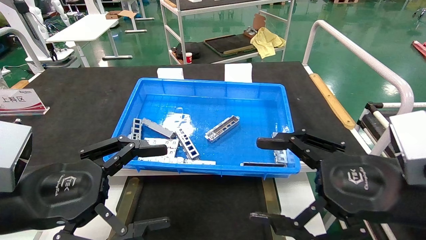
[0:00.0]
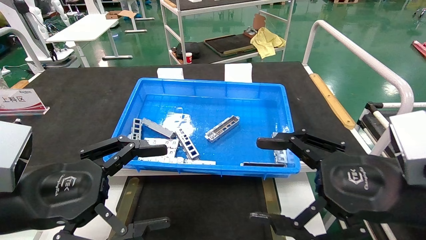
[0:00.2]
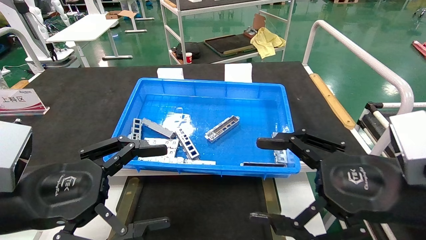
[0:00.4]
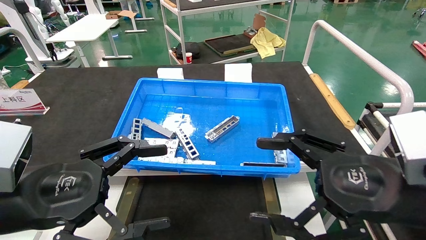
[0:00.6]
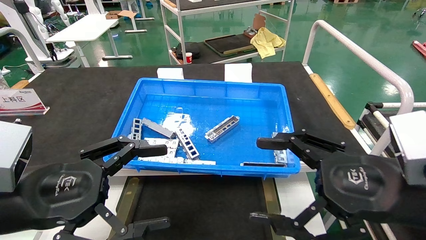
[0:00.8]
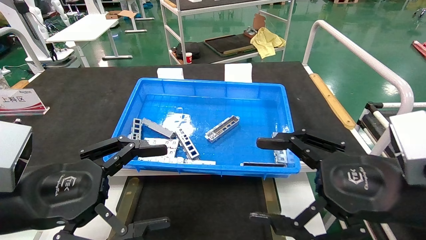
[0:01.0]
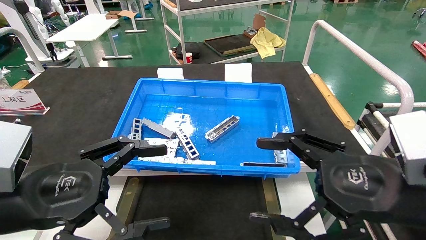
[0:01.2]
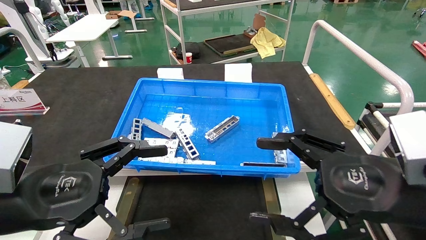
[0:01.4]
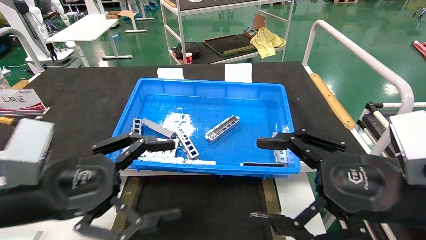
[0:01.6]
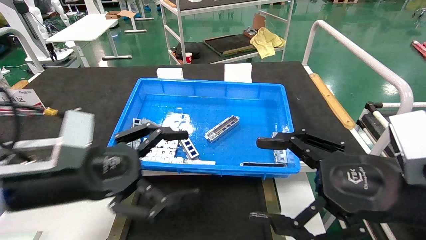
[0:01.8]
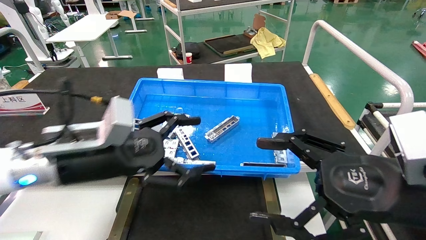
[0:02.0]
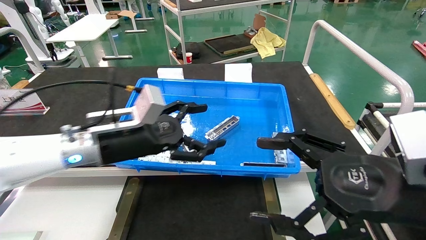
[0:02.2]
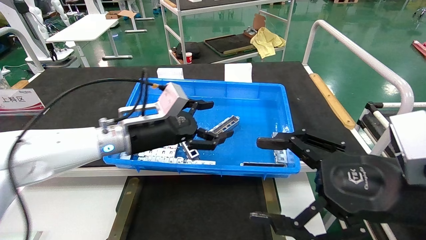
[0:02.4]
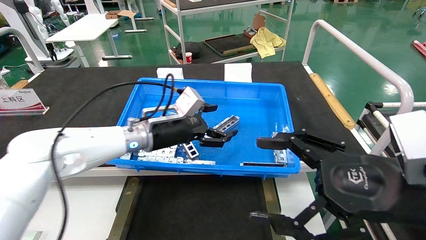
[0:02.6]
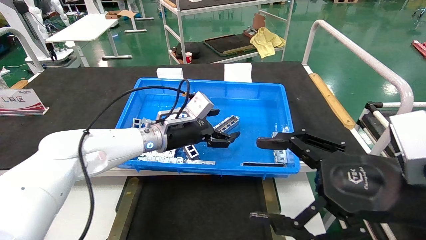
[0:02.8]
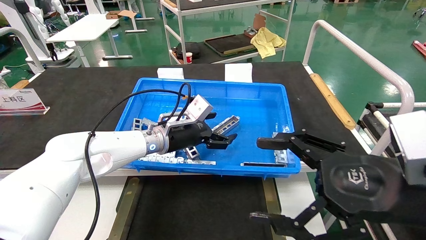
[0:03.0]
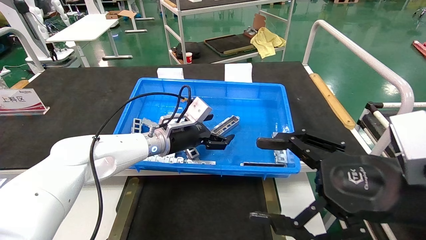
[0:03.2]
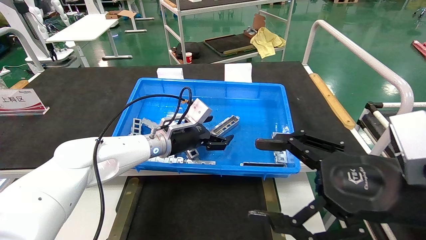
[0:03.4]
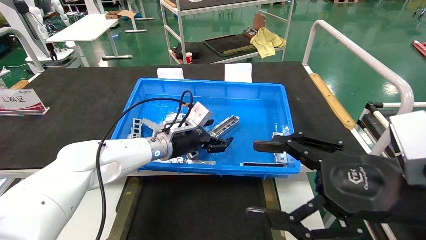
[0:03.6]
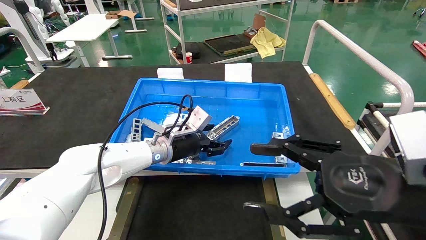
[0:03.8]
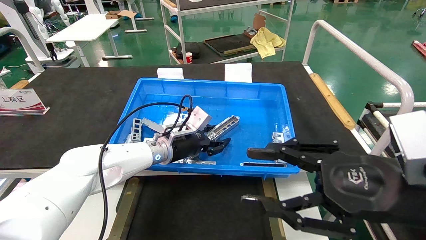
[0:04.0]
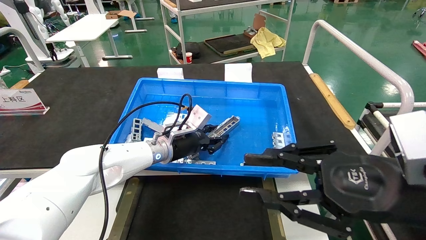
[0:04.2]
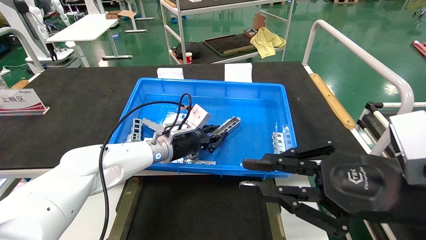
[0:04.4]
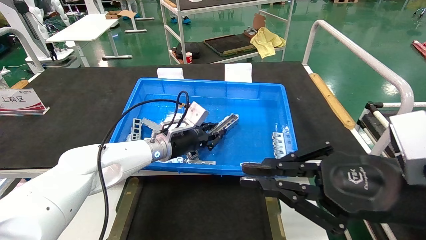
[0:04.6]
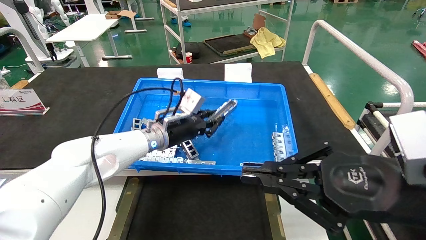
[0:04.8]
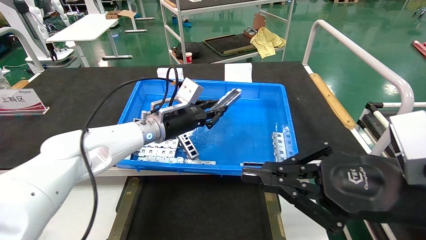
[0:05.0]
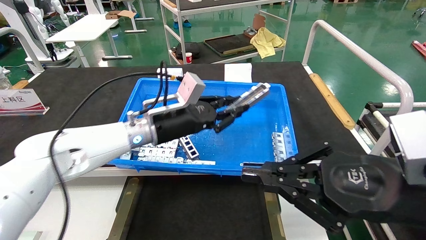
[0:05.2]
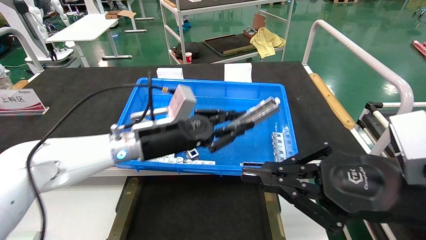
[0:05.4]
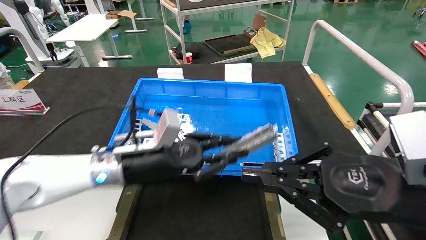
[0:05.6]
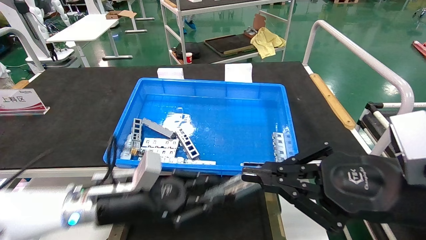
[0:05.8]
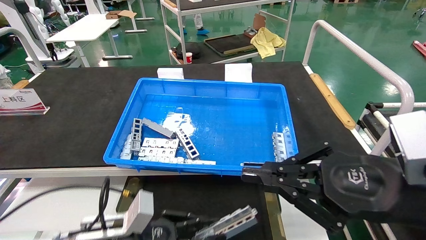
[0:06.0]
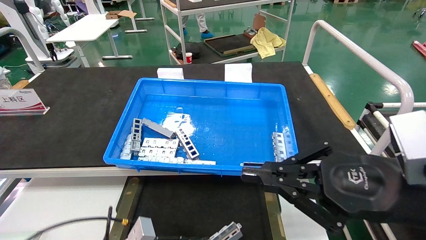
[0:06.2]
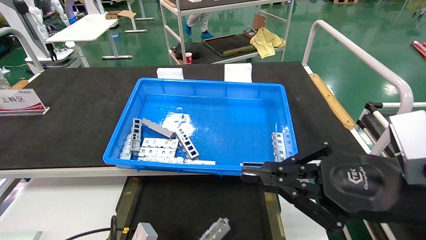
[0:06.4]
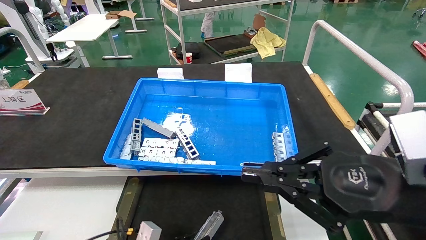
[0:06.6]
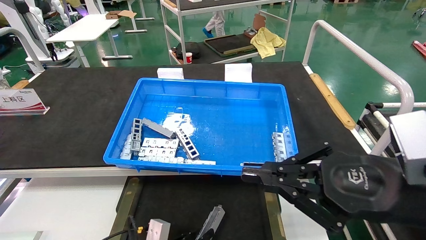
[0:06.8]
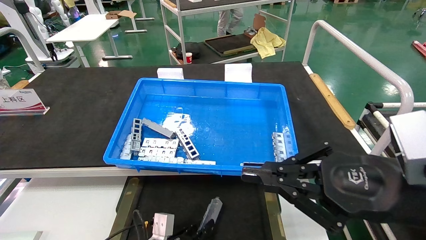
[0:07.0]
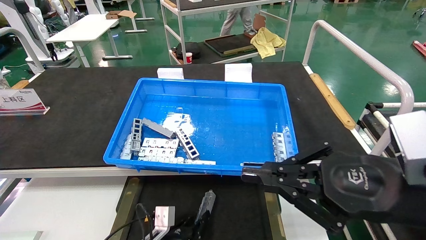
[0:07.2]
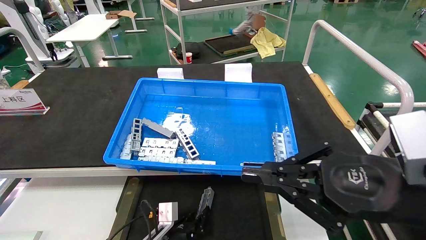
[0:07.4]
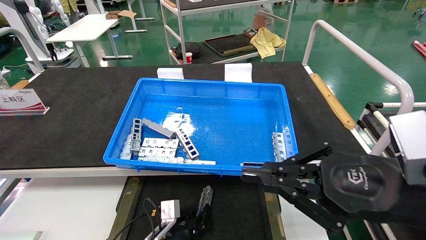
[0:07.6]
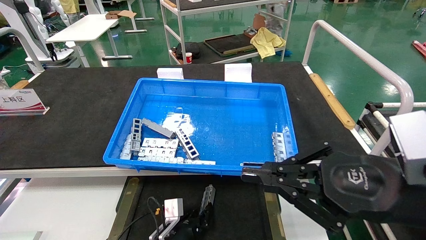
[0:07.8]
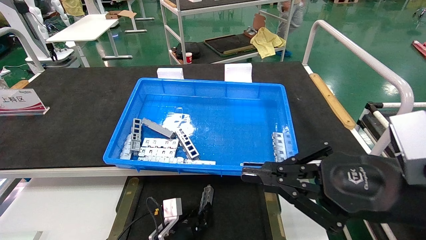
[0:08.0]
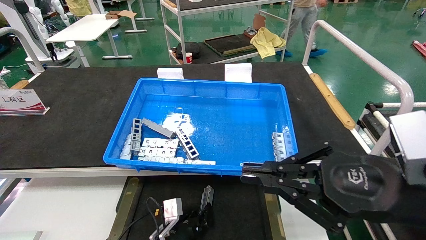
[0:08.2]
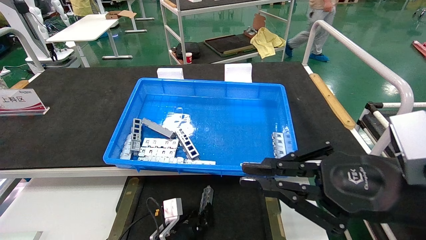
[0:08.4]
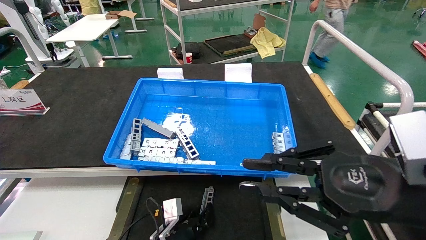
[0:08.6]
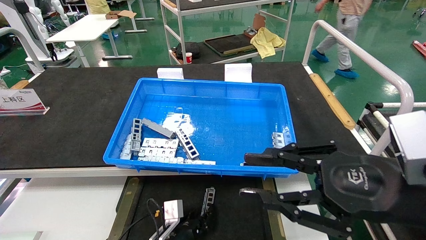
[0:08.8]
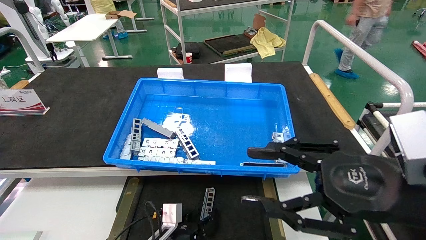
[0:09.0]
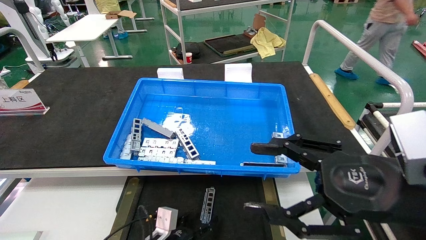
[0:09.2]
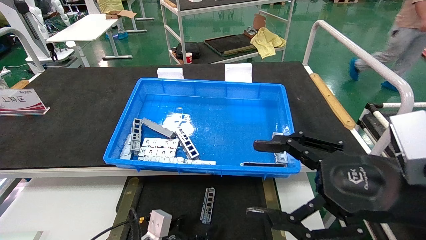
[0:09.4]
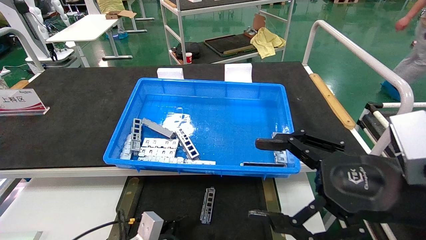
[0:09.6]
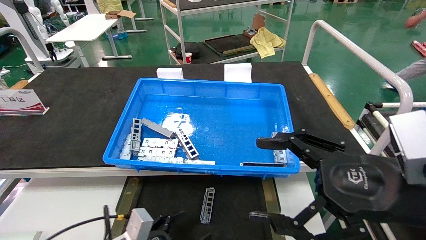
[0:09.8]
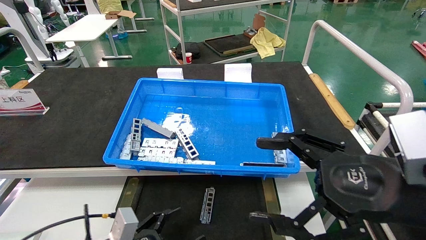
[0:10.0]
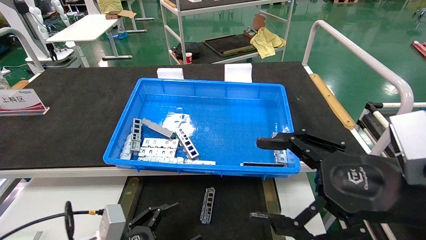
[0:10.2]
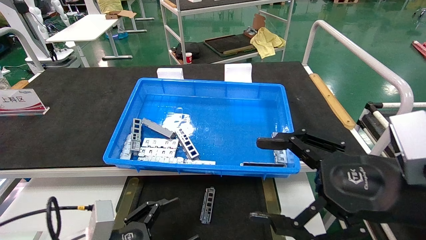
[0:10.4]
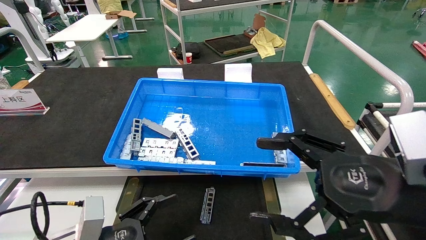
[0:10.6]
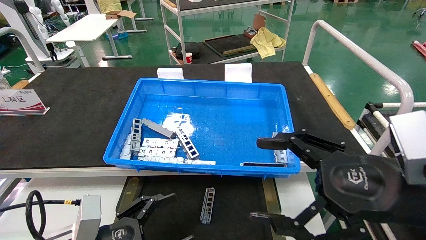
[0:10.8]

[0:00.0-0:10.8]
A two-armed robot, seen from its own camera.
Task of the whole recording: Grasp the part with one hand and place it on the black container.
Step, 0:01.8 to 0:04.4: Pick up the front USB bracket from the feeding area.
Step, 0:04.6 to 0:08.8: Place the front USB bracket into the box.
0:00.0 to 0:01.6: The grippers move only a little.
0:01.6 to 0:03.0: The left gripper shifts about 30 cm forward and to the right.
0:03.0 to 0:04.6: The left gripper closes; the right gripper closes.
0:04.6 to 0:06.2: The left gripper moves backward and downward, roughly 25 cm.
0:06.2 to 0:07.8: The left gripper moves forward, downward and to the right, roughly 15 cm.
0:07.8 to 0:09.2: The right gripper opens its fingers. The left gripper ends up some 5 cm from where it was, and opens.
0:09.2 to 0:10.8: The left gripper is displaced upward, backward and to the left by some 20 cm, and opens up. The right gripper opens up.

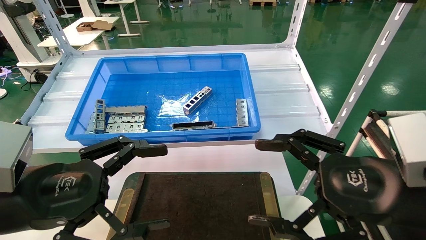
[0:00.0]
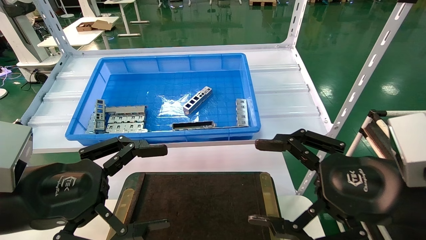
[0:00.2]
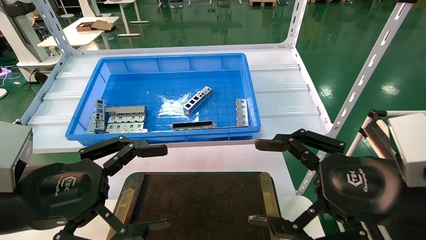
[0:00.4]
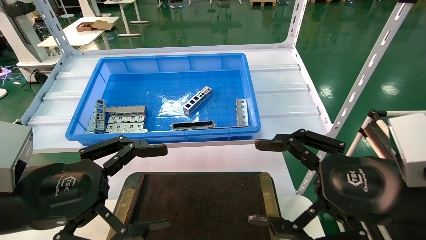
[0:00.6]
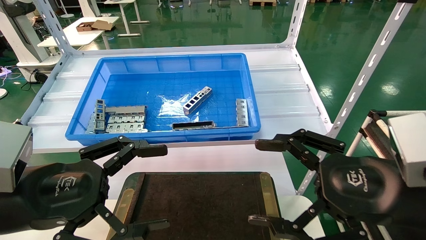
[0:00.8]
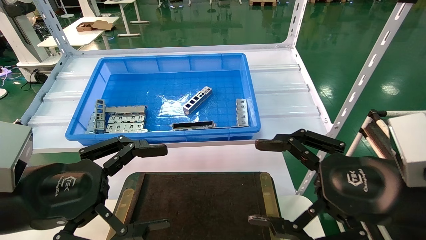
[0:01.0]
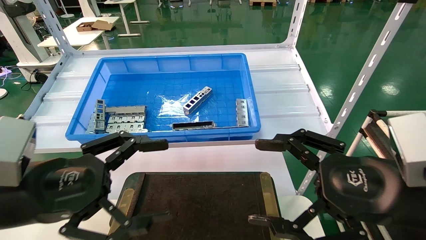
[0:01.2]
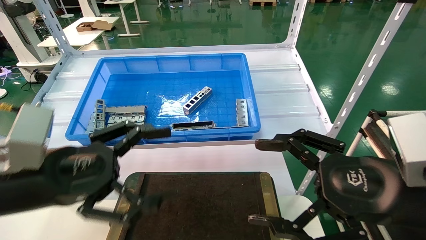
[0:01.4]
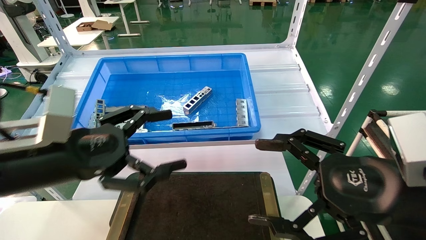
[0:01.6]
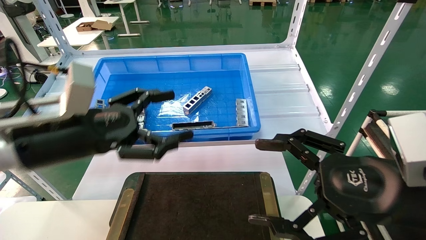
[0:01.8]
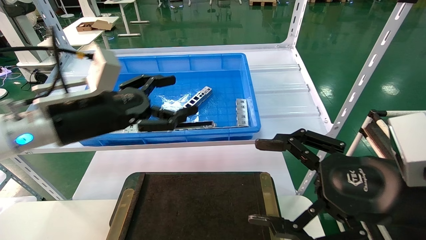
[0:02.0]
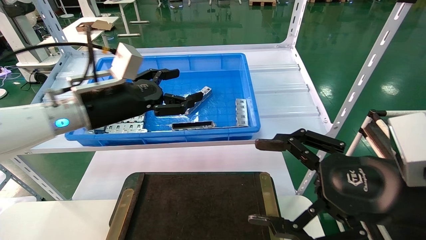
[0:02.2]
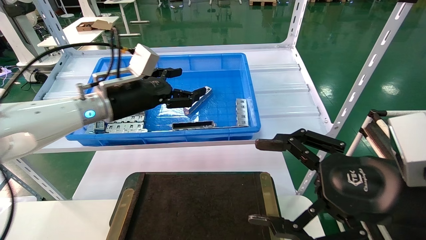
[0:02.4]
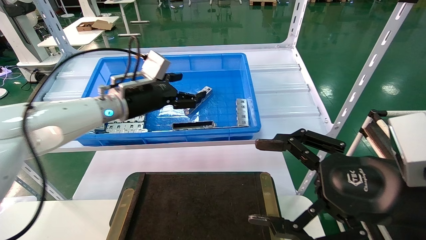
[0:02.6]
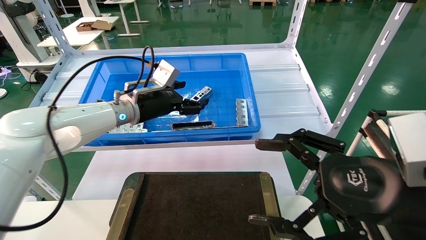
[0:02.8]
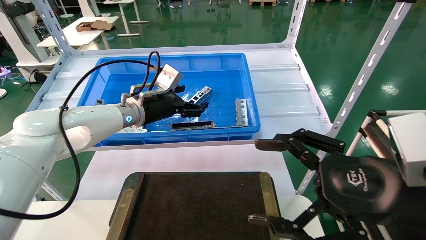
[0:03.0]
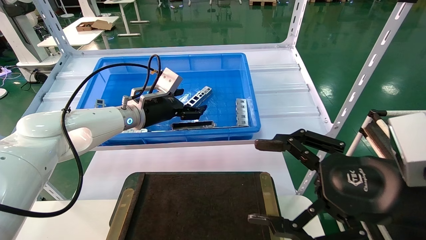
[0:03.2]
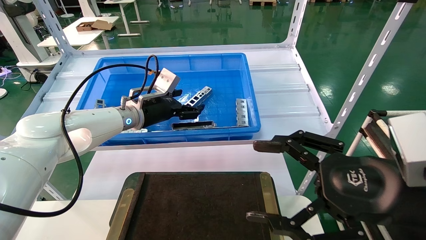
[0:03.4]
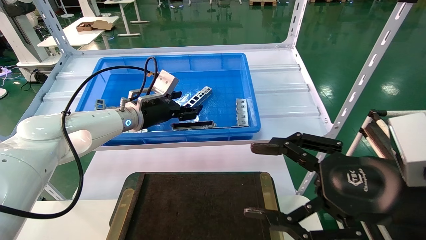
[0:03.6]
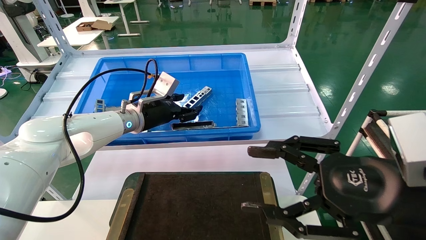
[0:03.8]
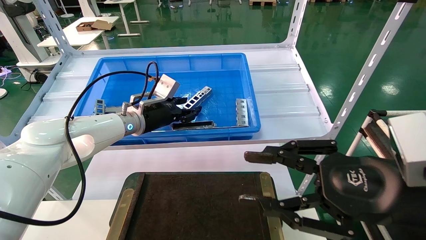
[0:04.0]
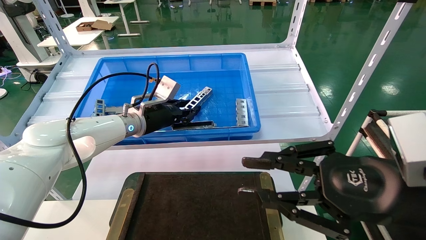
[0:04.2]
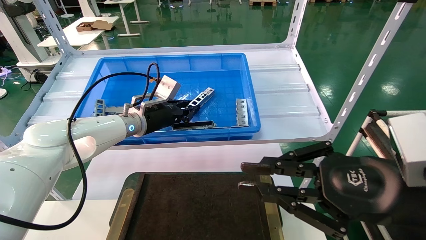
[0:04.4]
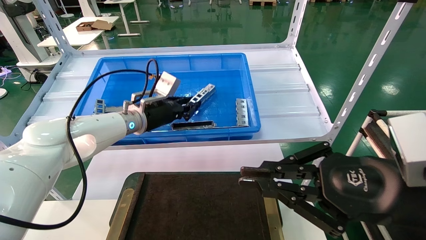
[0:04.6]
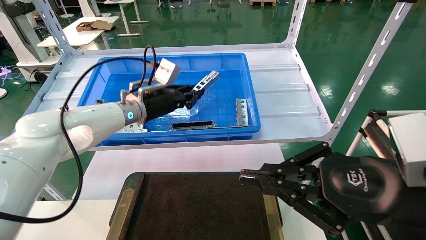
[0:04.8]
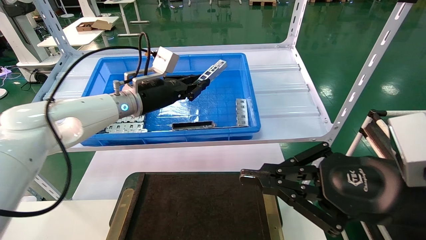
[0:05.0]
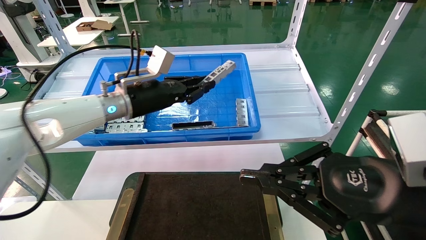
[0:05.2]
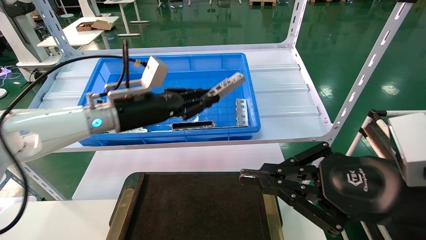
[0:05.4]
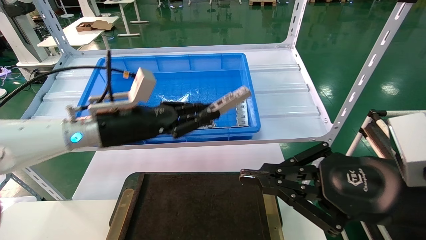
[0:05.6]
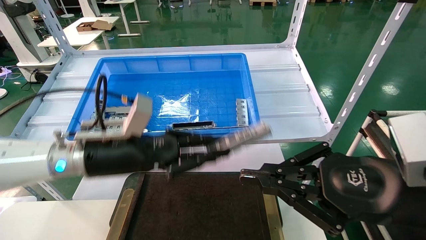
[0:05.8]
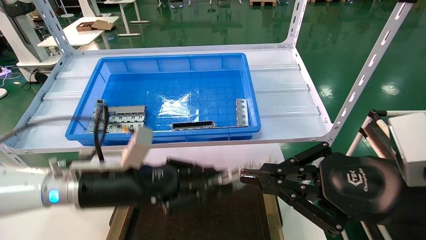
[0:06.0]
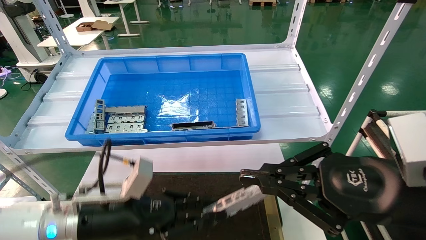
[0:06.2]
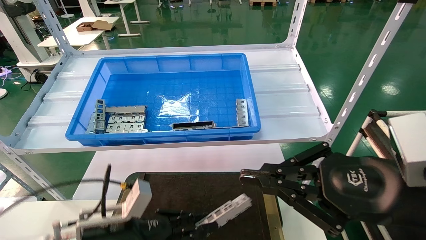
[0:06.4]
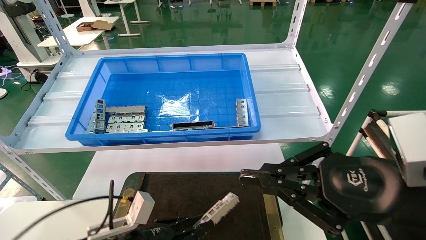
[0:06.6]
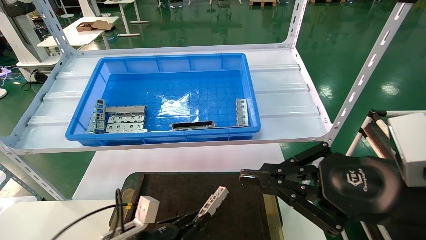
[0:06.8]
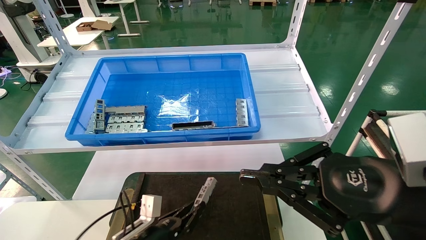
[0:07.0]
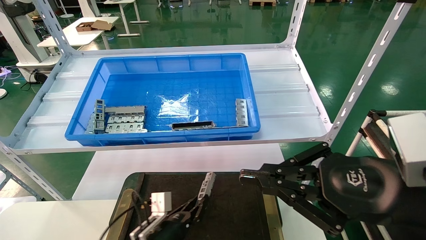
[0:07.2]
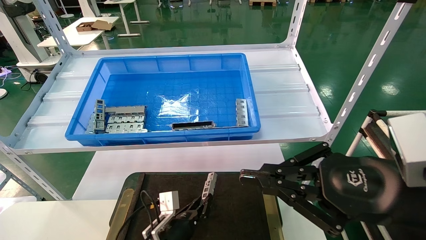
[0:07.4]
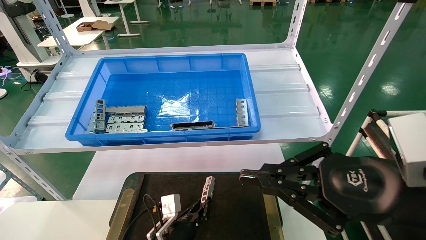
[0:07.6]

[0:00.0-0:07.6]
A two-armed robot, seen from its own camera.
Task of the whole recording: Grasp the part with one hand and place it on the black container.
Step, 0:01.6 to 0:04.8: Pick up the front USB bracket from the feeding area.
0:00.0 to 0:01.6: The left gripper heads forward, covering approximately 5 cm.
0:01.6 to 0:03.0: The left gripper is displaced forward by roughly 25 cm.
0:03.0 to 0:04.6: The left gripper closes; the right gripper closes up.
0:04.6 to 0:06.0: The left gripper heads backward and downward, covering roughly 20 cm.
0:06.0 to 0:07.6: The left gripper goes approximately 25 cm downward.
